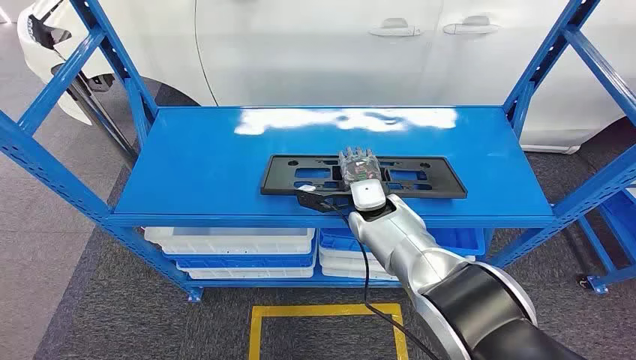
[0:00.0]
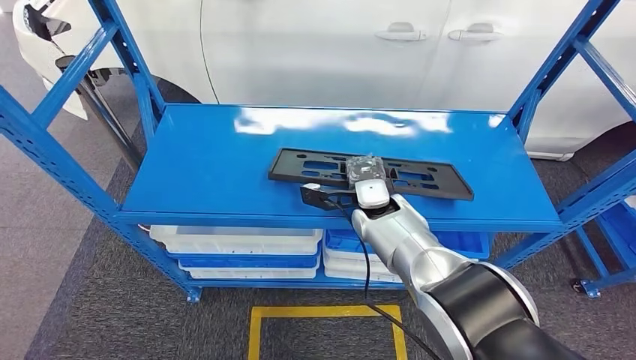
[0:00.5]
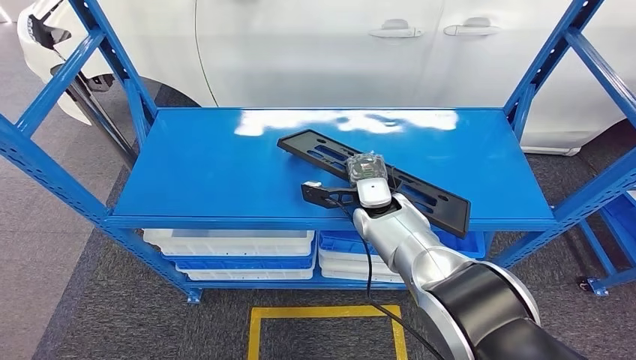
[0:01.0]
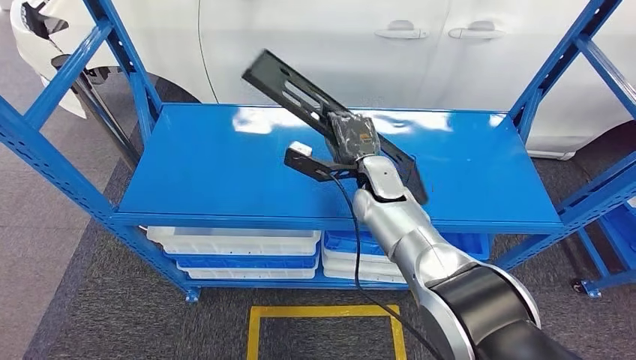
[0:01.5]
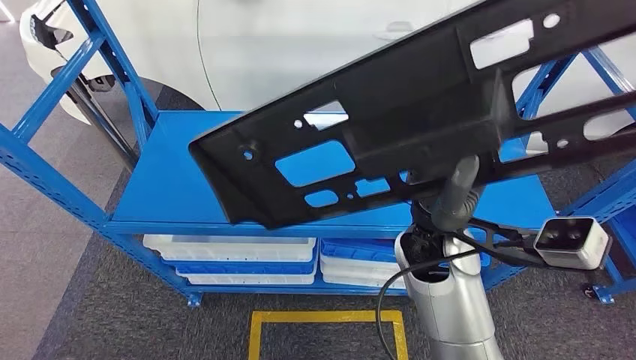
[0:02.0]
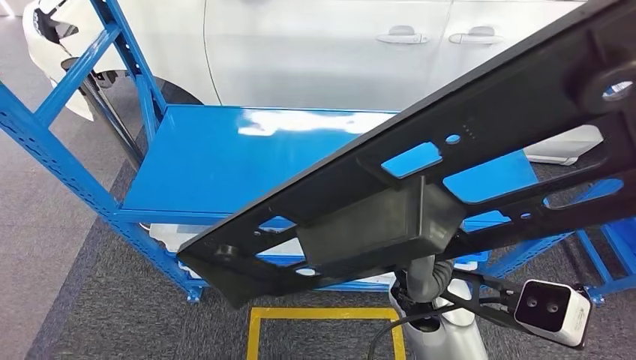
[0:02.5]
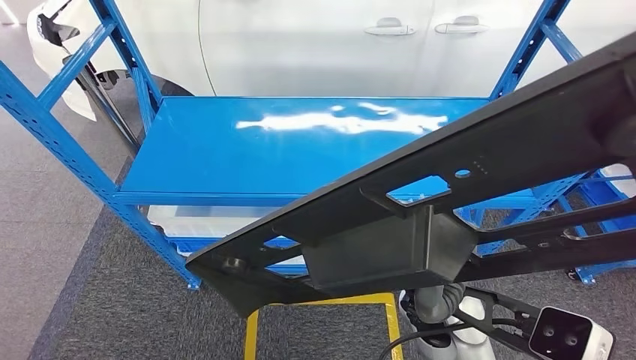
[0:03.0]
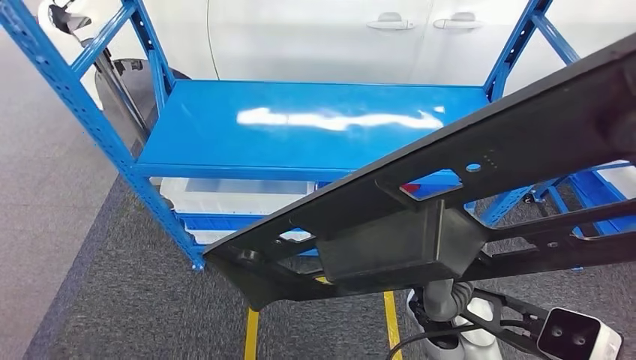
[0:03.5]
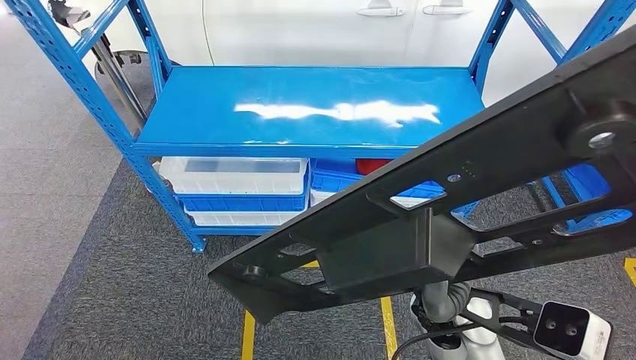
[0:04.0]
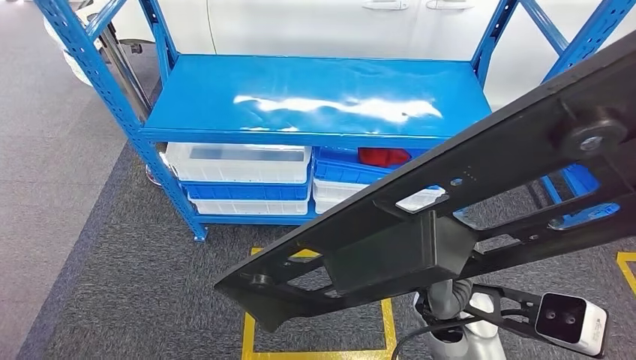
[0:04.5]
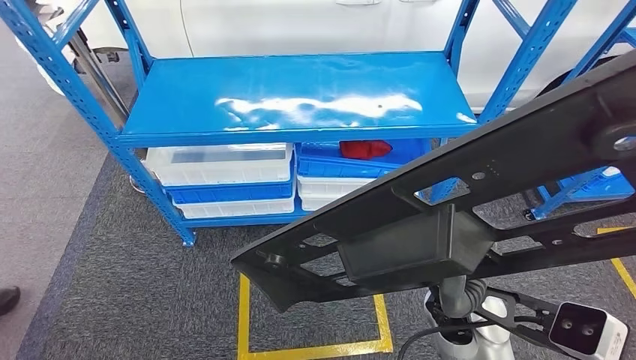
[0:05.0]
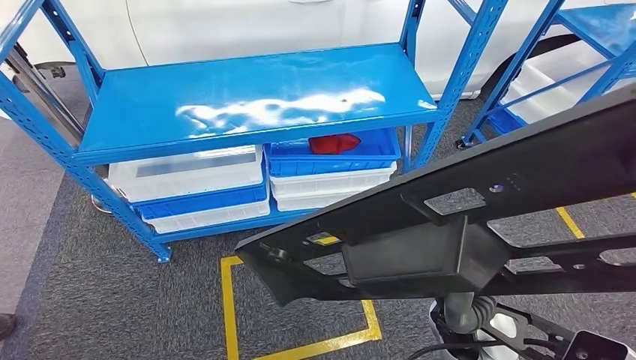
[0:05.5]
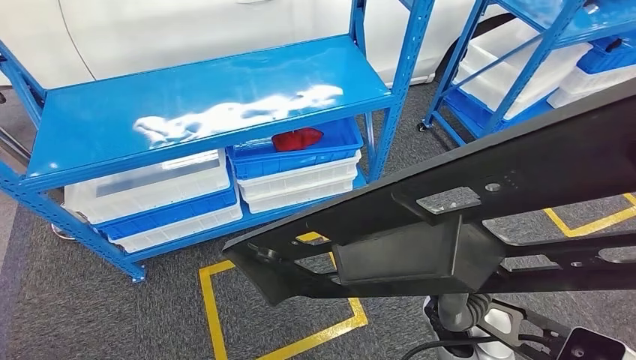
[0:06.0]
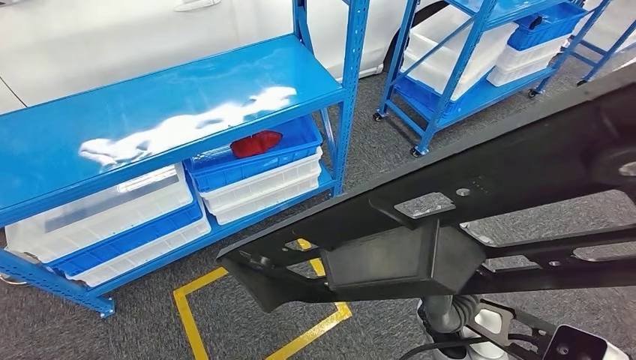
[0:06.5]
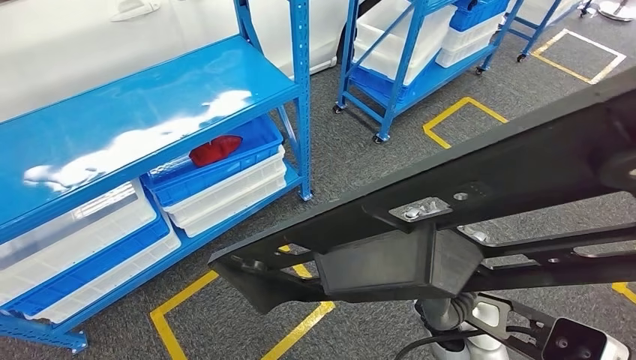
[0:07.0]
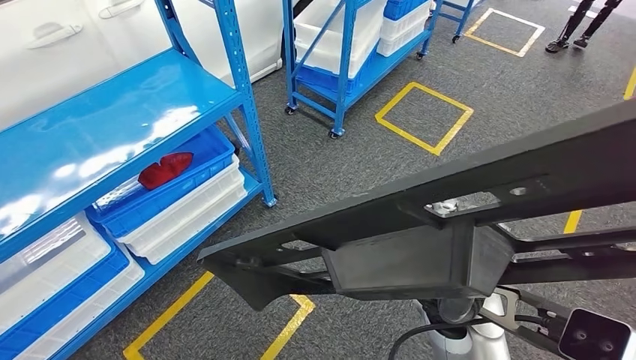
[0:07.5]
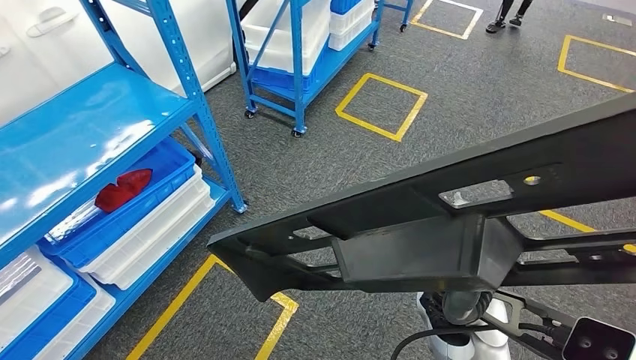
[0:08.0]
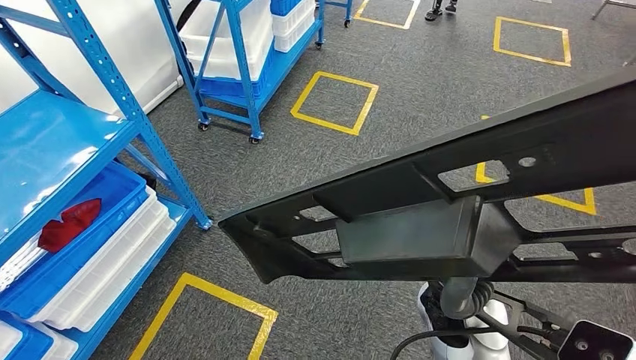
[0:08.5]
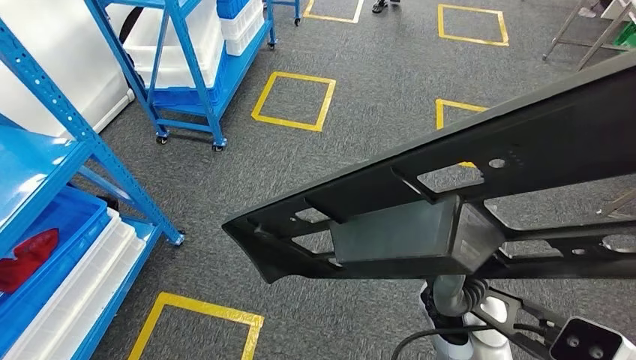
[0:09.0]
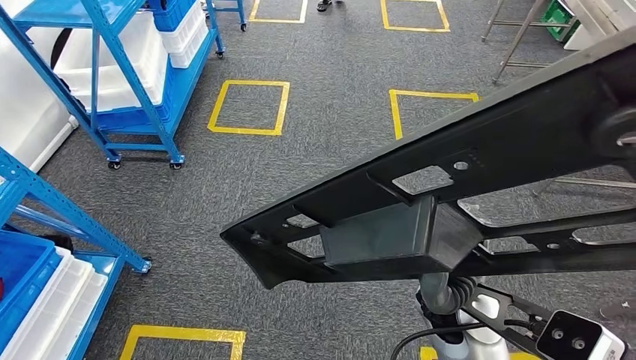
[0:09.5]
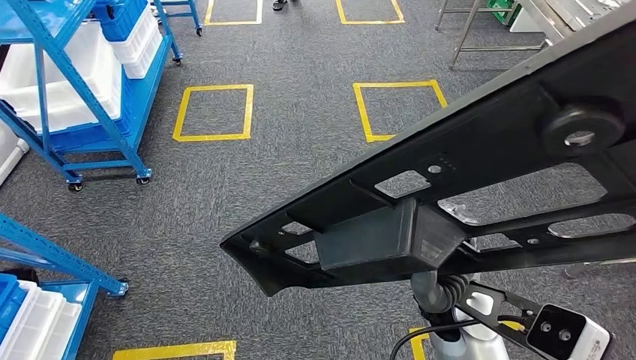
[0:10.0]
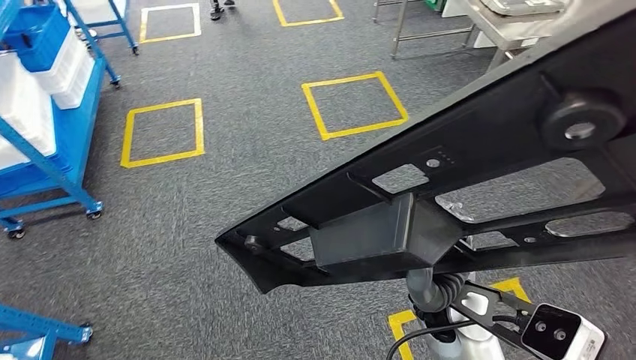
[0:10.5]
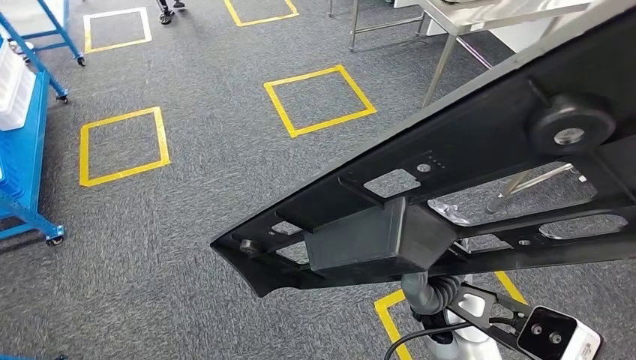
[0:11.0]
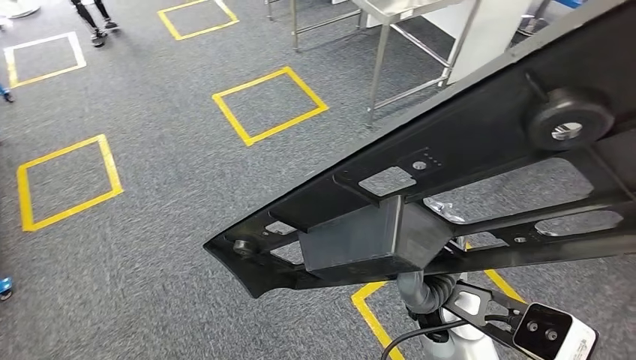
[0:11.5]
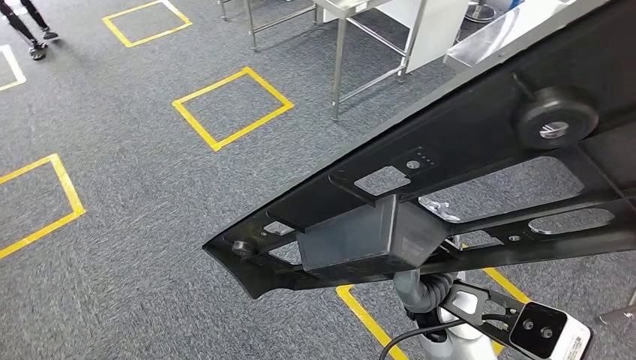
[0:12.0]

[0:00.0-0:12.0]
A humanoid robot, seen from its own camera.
Step, 0:00.0 to 0:04.5: Pick up the large material from the shelf.

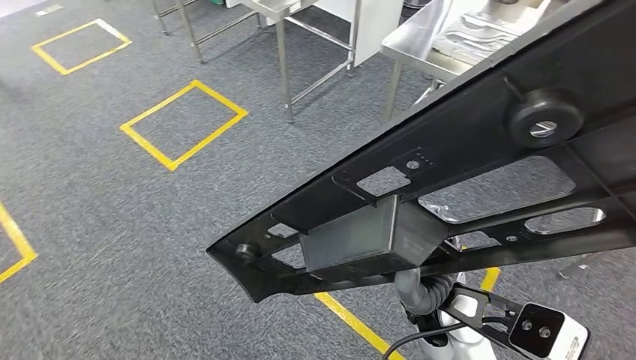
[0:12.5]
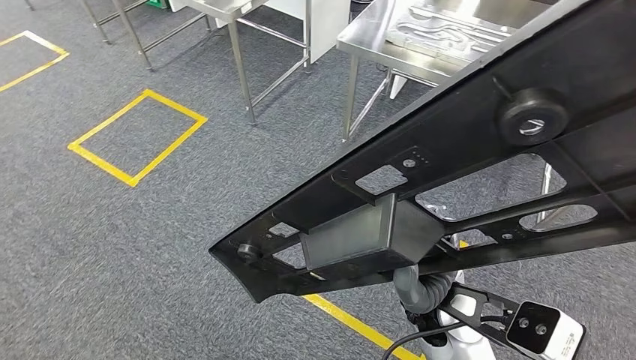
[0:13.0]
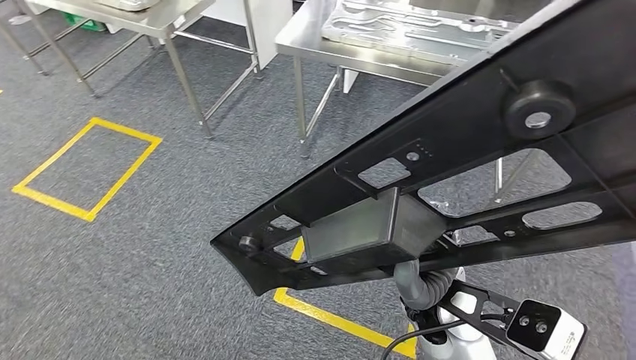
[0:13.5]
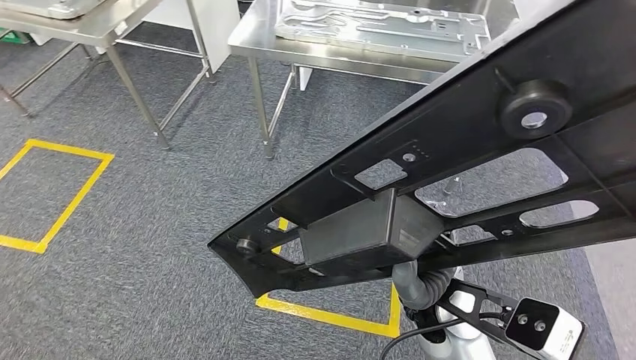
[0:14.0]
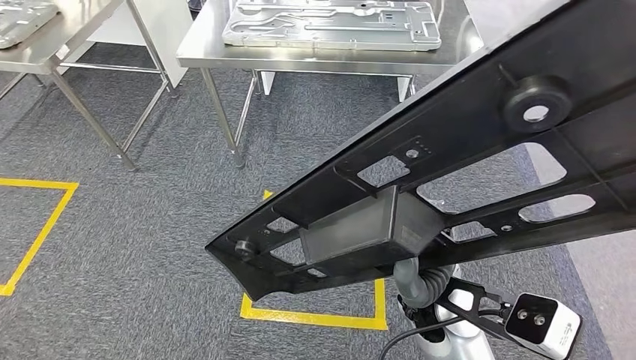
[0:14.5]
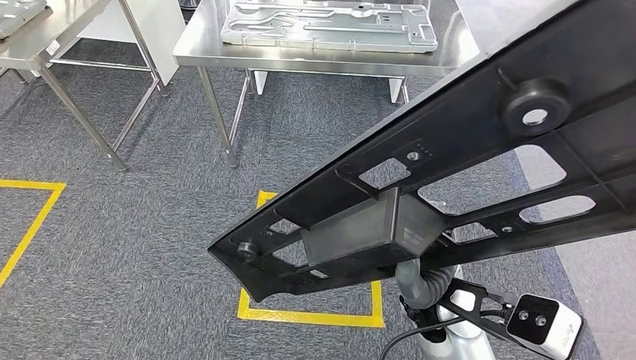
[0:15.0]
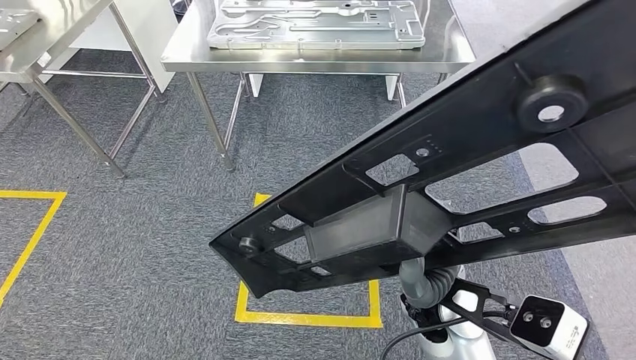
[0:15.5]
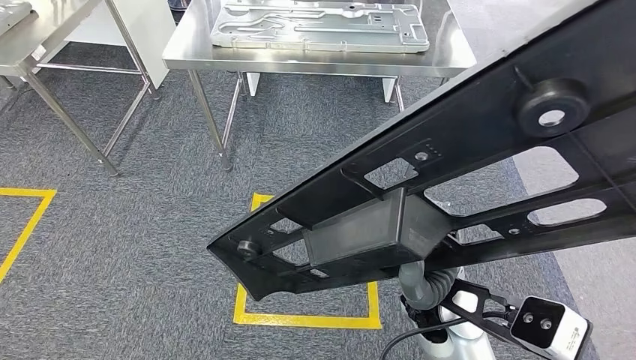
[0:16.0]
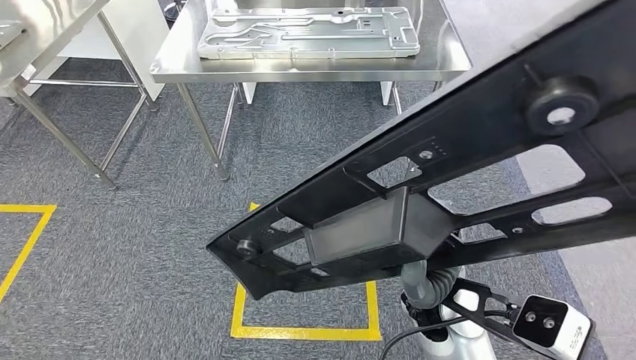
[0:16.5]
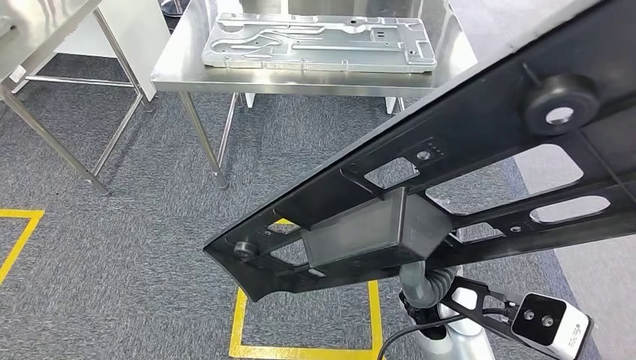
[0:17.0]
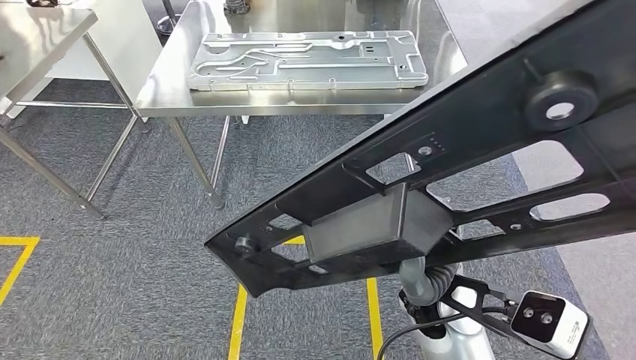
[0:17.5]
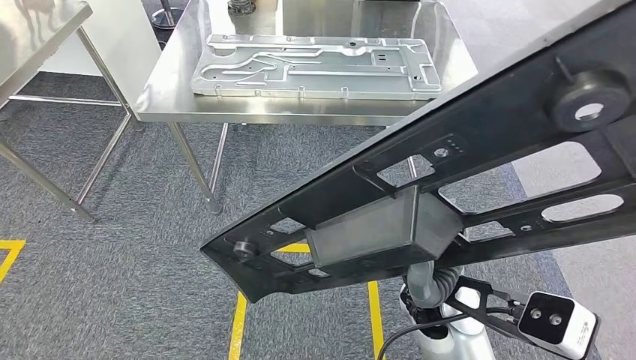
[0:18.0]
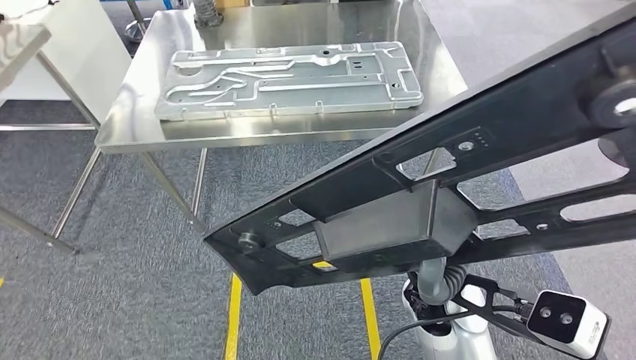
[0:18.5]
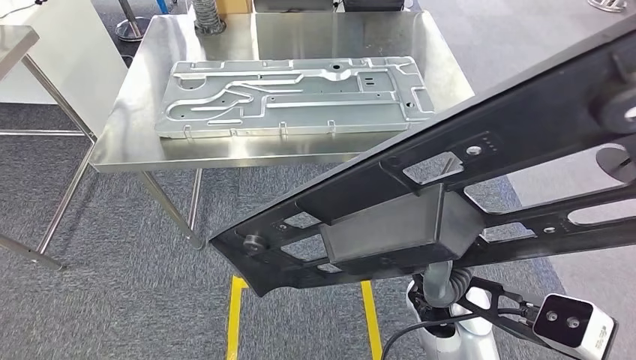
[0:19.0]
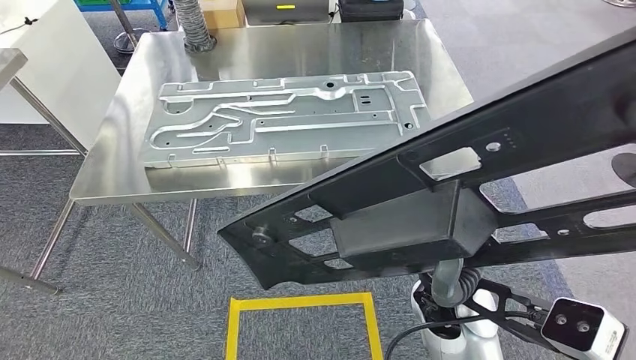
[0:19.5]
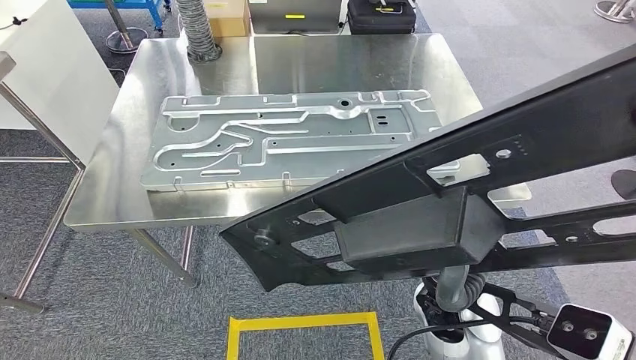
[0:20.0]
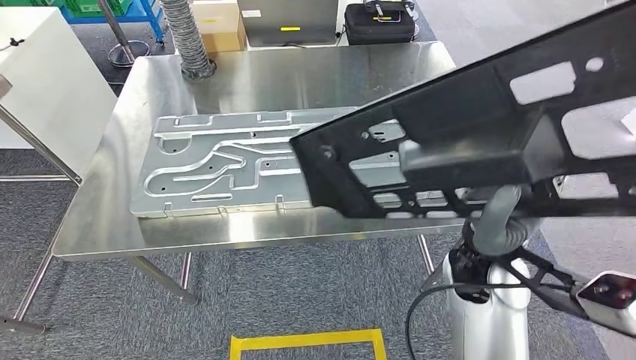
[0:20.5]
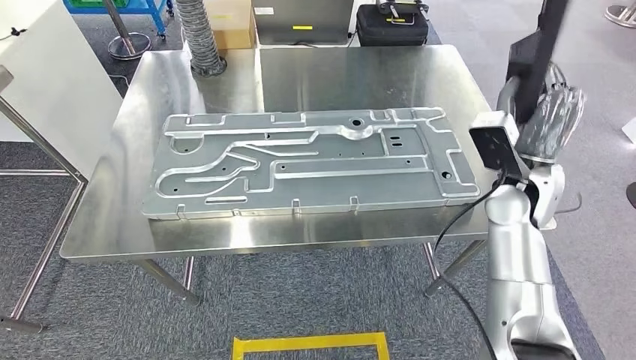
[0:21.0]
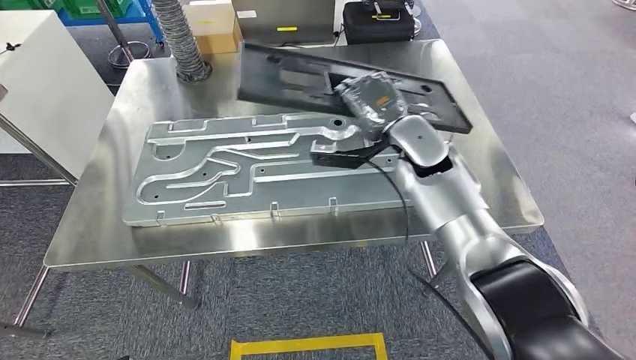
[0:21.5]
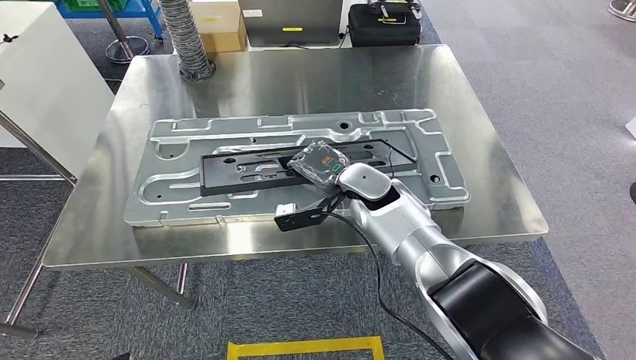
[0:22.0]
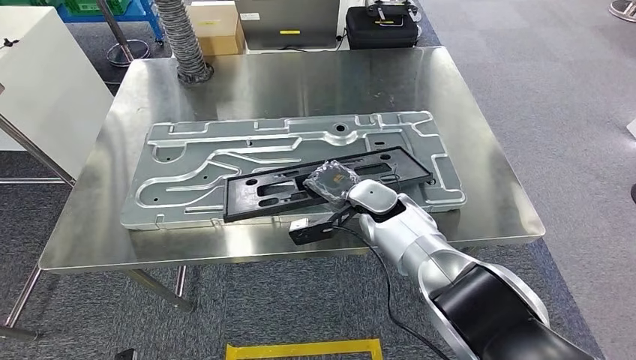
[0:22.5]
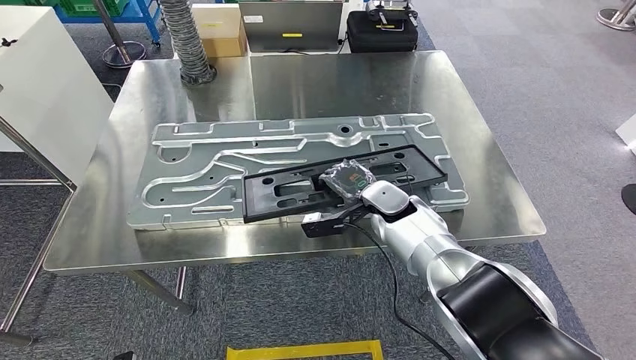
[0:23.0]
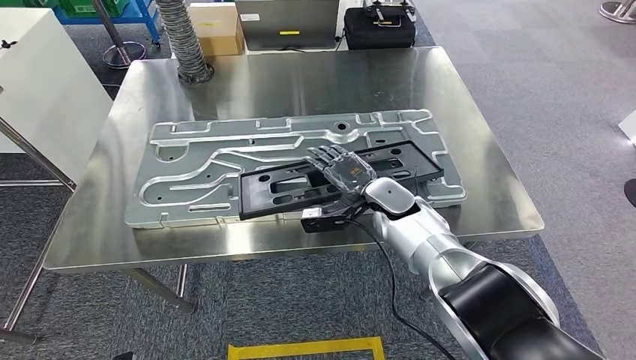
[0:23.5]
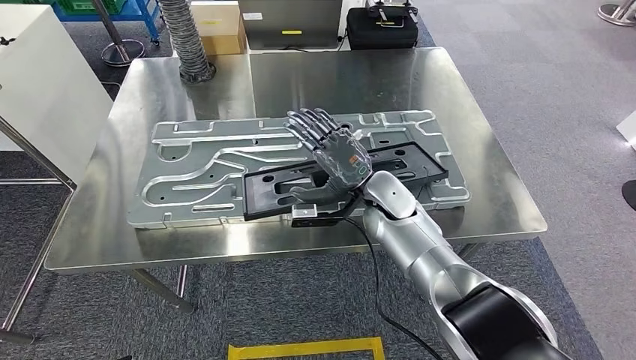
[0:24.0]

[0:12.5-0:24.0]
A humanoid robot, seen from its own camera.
Step, 0:12.5 to 0:20.0: Move the large material to the workbench.
